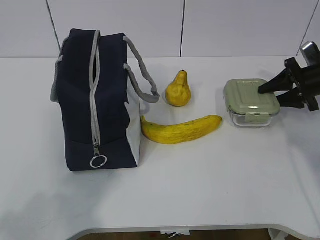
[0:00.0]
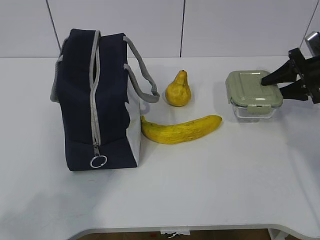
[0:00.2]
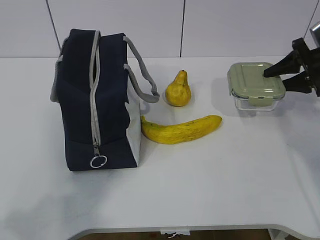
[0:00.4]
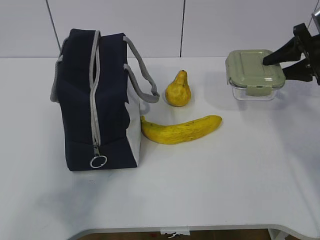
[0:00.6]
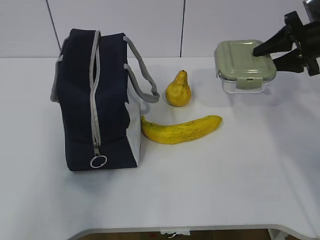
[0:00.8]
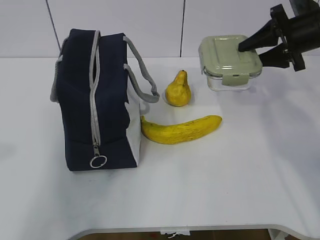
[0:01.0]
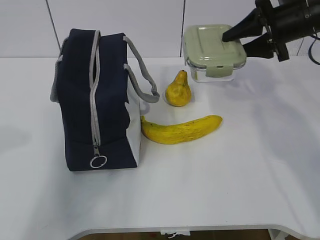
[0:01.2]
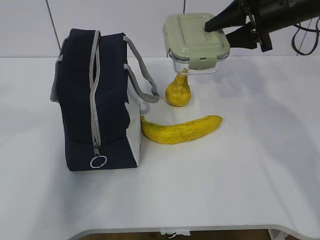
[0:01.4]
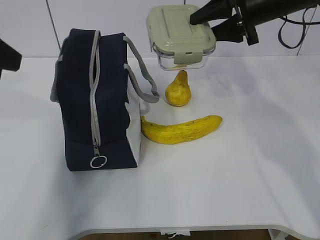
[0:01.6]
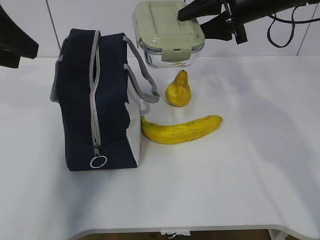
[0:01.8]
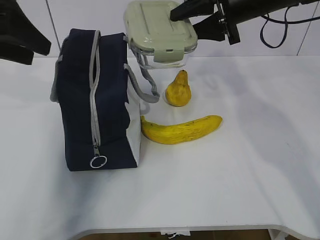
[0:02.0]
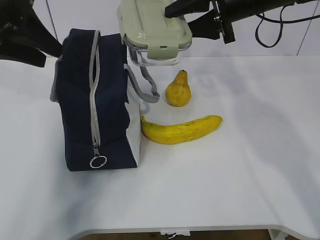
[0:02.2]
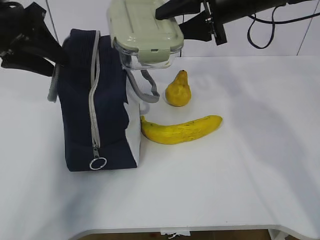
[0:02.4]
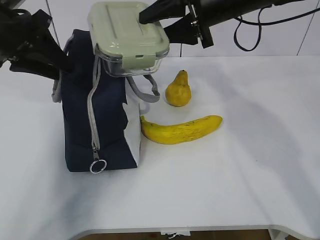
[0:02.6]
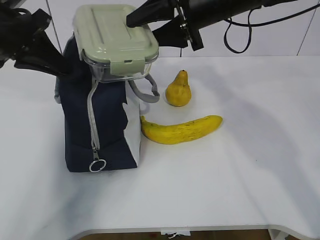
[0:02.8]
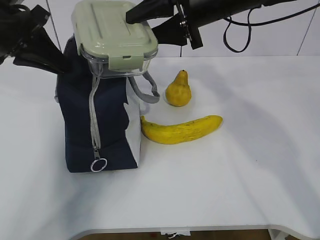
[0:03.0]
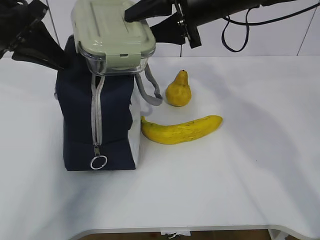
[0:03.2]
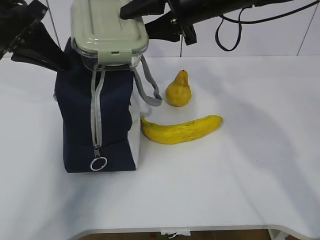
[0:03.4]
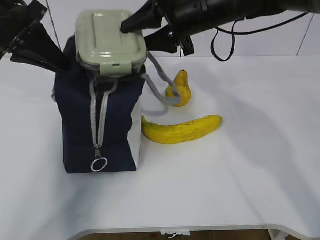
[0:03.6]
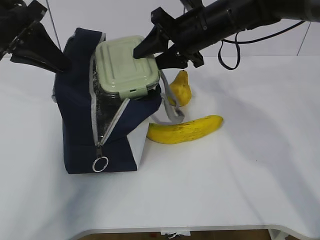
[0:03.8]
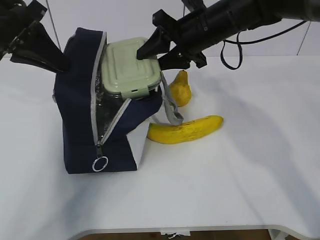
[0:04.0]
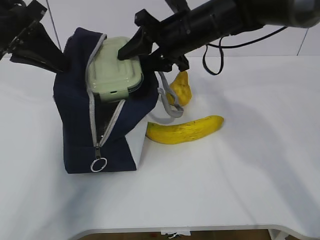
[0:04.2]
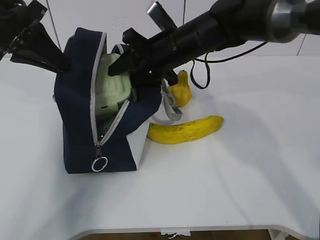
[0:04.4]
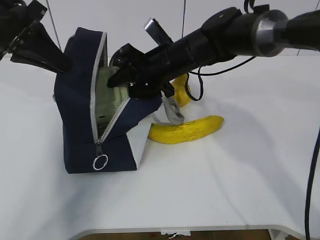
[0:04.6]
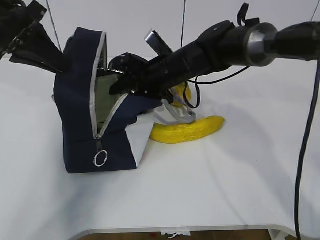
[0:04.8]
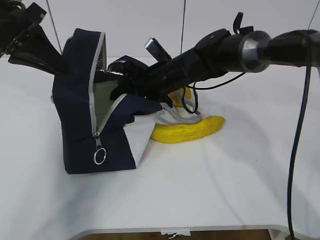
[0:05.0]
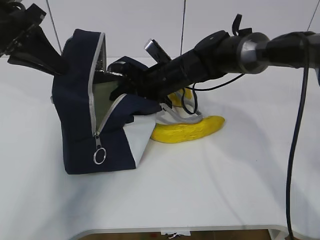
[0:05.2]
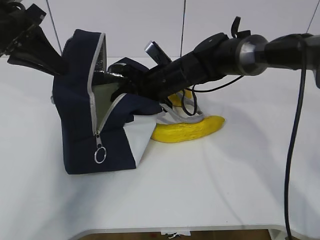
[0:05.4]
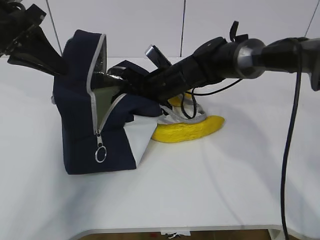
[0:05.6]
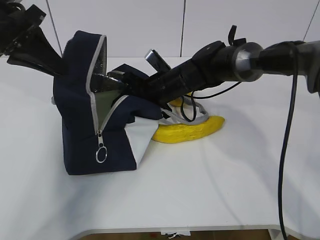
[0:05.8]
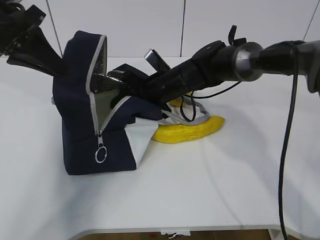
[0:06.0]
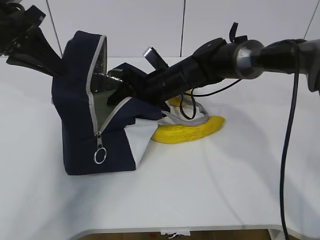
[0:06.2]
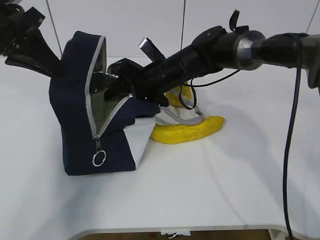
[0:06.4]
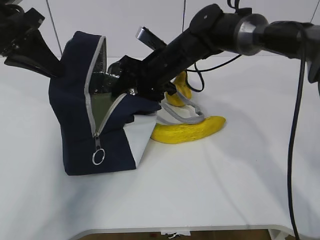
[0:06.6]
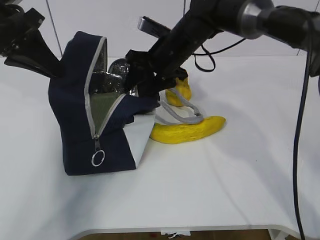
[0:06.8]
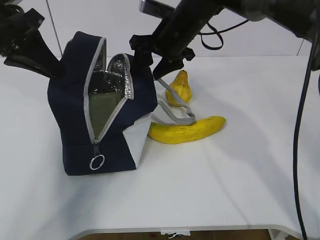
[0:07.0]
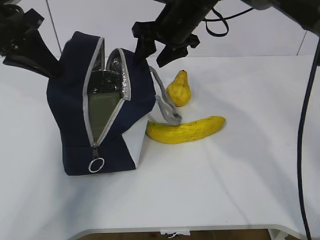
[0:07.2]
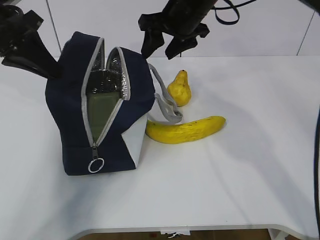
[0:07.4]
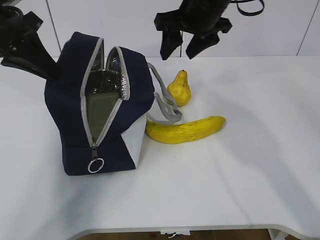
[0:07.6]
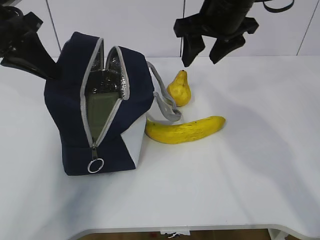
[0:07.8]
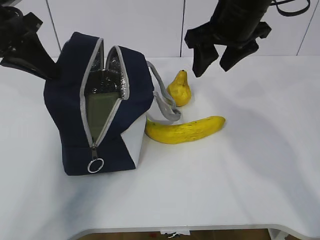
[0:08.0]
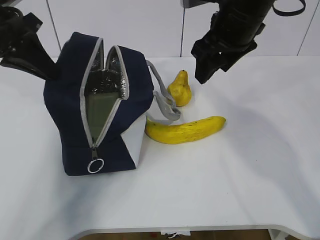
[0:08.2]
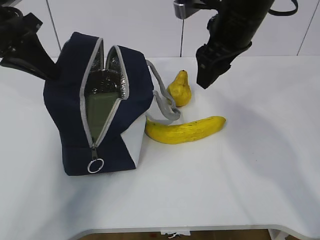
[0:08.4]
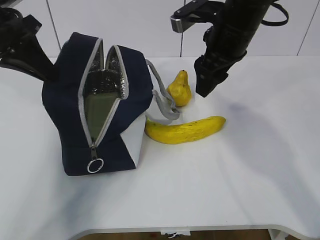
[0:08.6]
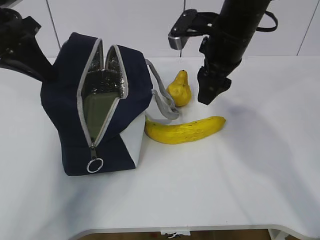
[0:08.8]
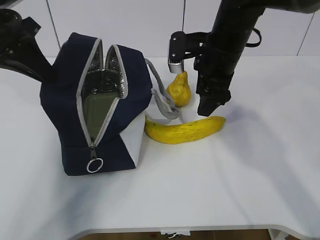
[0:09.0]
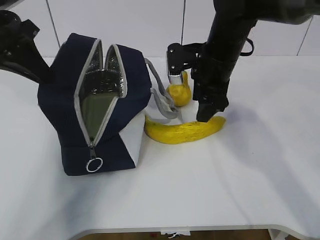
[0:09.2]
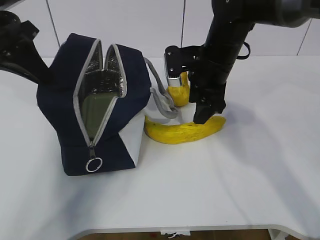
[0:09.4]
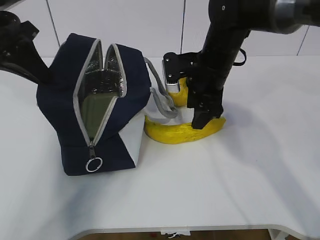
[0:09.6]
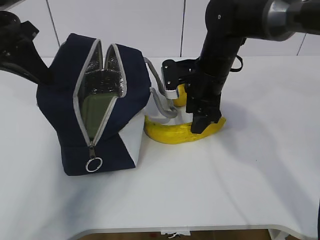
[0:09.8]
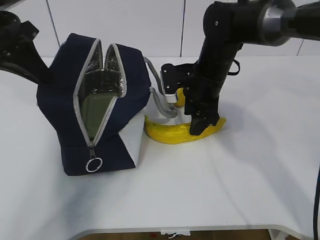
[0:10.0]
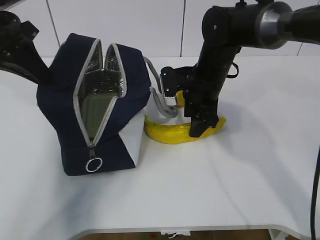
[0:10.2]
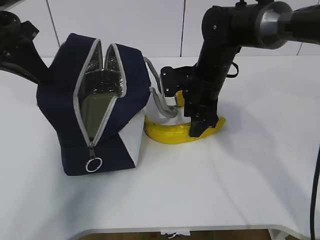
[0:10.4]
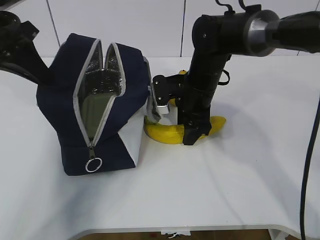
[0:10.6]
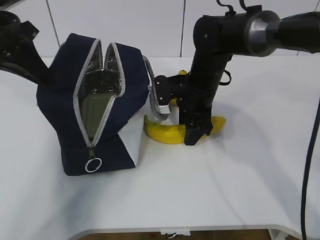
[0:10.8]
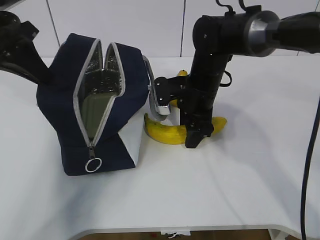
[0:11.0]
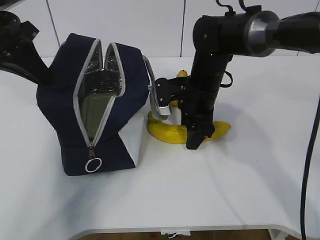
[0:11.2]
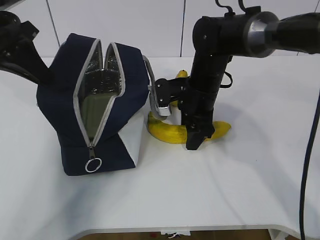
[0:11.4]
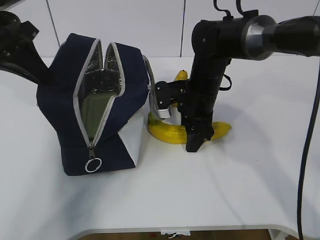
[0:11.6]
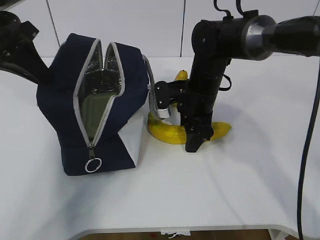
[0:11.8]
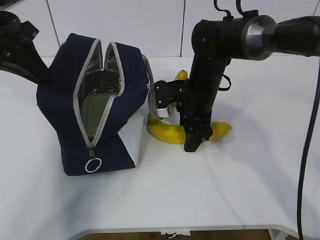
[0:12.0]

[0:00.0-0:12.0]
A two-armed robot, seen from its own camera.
Step, 0:01.6 to 0:04.0: Place it into the bag with your right hand.
Step, 0:04.2 to 0:08.8: Grab the banana with your right hand.
0:00.0 to 0:01.6: The left gripper moves forward, about 25 cm, while the right gripper heads to the left and upward, covering some 25 cm.
0:01.6 to 0:03.0: The right gripper travels to the left by approximately 10 cm, while the left gripper goes approximately 15 cm forward and downward, and closes its fingers.
0:03.0 to 0:04.4: The right gripper moves downward and to the left, roughly 10 cm.
0:04.4 to 0:06.0: The right gripper is displaced downward by approximately 10 cm.
0:06.0 to 0:07.6: The right gripper goes about 15 cm upward.
0:07.6 to 0:09.0: The right gripper moves downward, roughly 5 cm.
0:09.0 to 0:10.4: The right gripper moves downward, approximately 5 cm.
0:10.4 to 0:12.0: There are only small adjustments of the grippers.

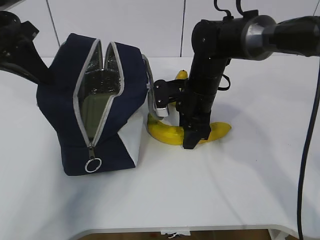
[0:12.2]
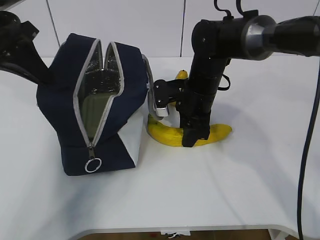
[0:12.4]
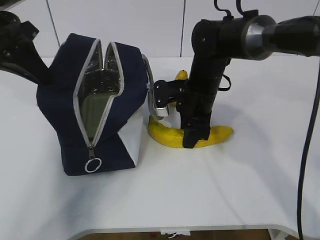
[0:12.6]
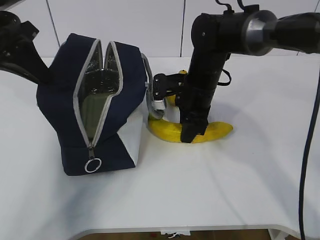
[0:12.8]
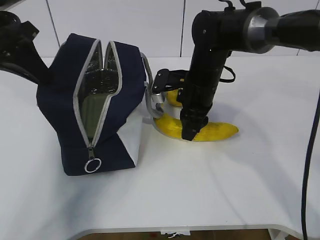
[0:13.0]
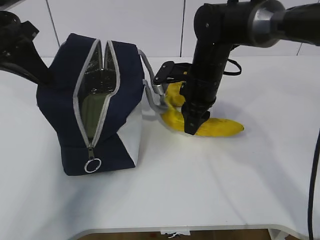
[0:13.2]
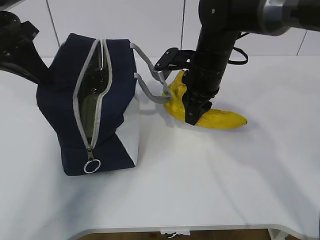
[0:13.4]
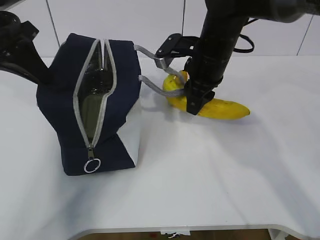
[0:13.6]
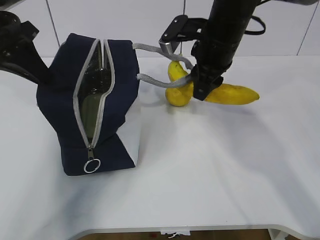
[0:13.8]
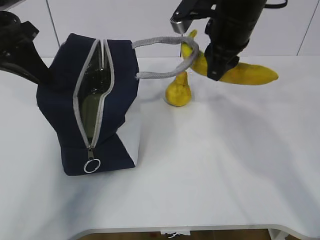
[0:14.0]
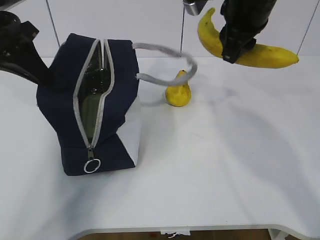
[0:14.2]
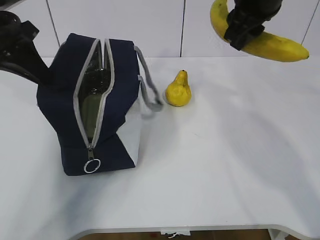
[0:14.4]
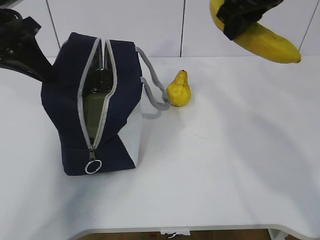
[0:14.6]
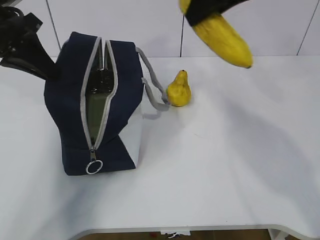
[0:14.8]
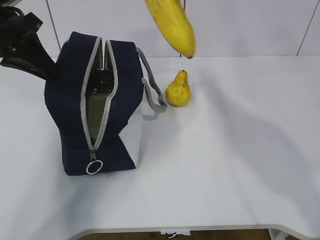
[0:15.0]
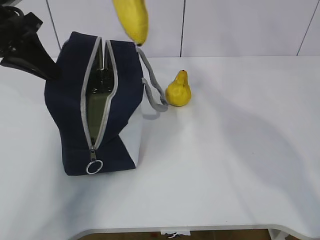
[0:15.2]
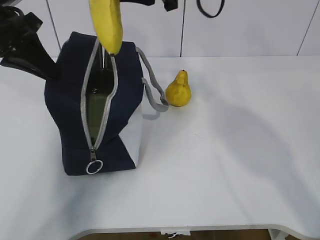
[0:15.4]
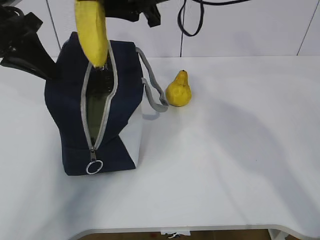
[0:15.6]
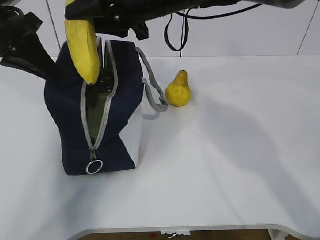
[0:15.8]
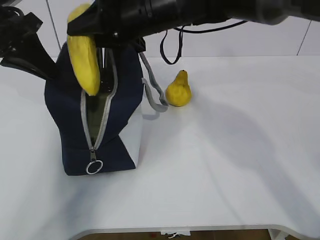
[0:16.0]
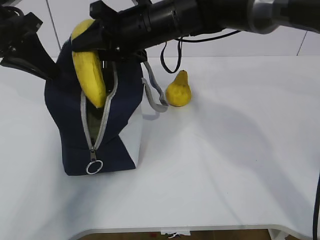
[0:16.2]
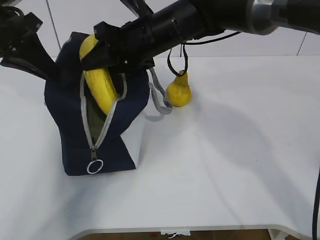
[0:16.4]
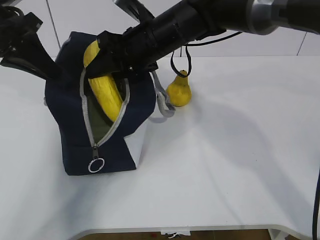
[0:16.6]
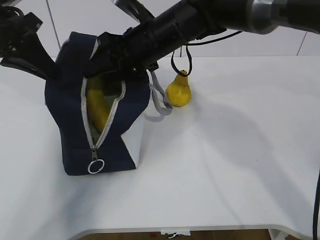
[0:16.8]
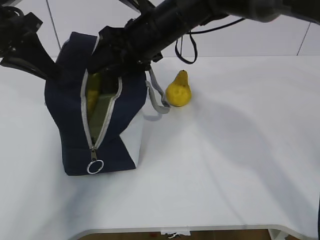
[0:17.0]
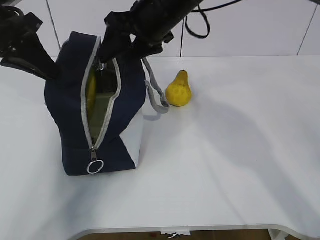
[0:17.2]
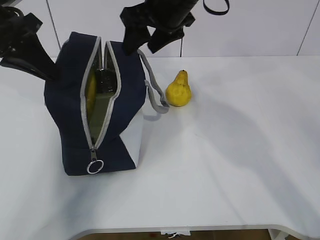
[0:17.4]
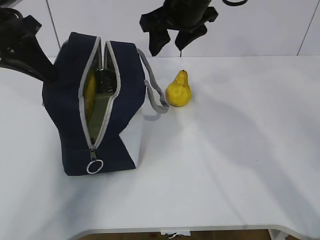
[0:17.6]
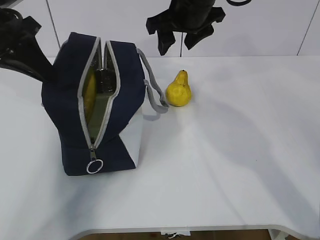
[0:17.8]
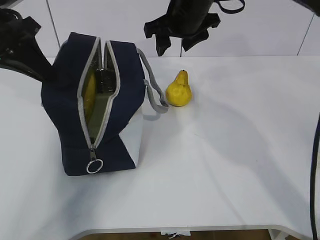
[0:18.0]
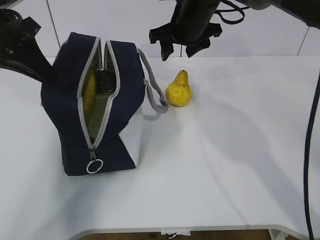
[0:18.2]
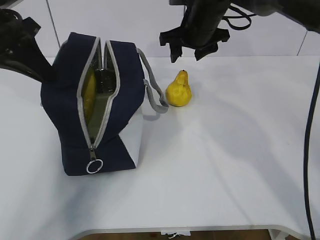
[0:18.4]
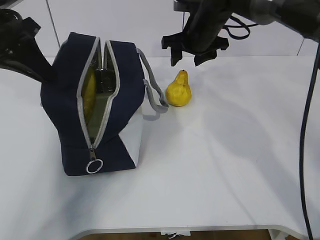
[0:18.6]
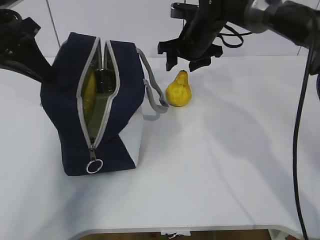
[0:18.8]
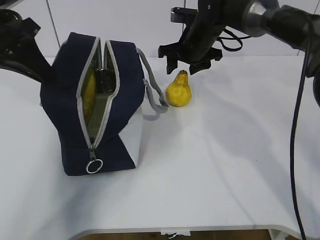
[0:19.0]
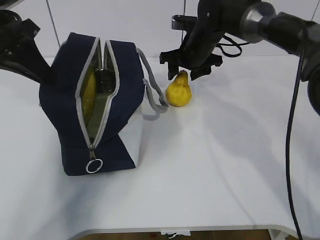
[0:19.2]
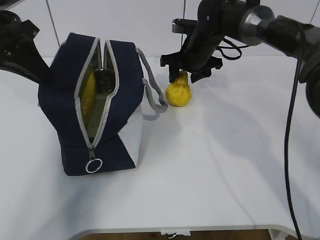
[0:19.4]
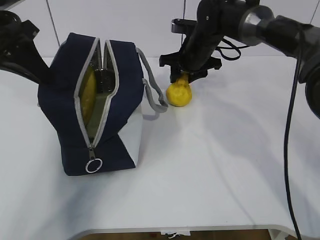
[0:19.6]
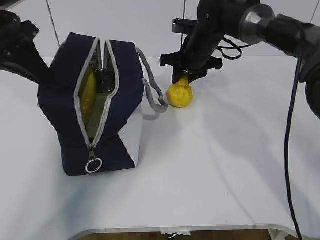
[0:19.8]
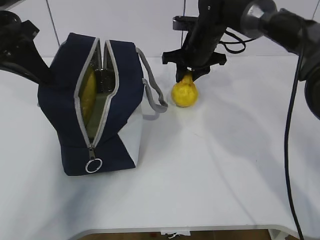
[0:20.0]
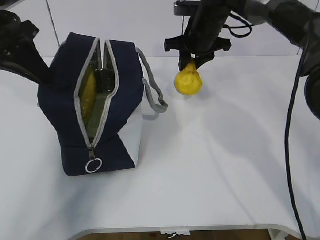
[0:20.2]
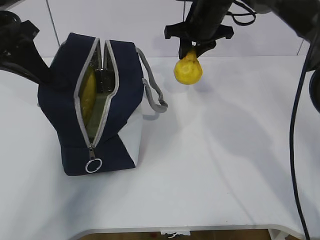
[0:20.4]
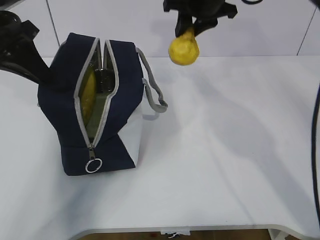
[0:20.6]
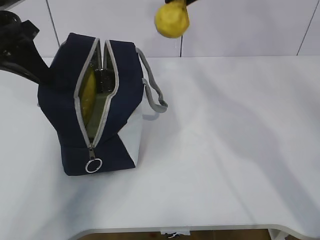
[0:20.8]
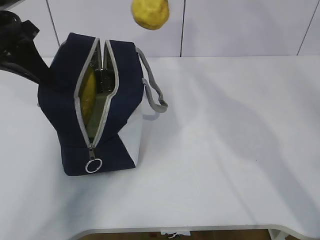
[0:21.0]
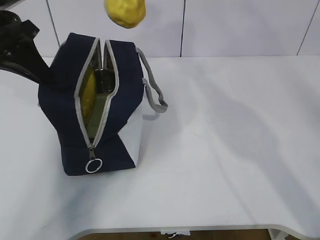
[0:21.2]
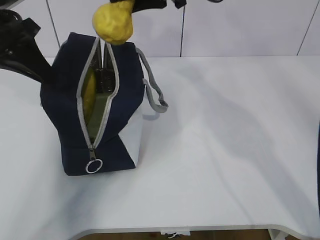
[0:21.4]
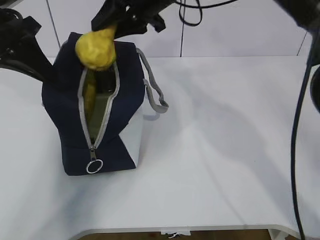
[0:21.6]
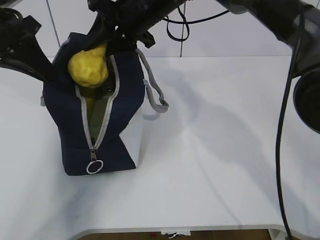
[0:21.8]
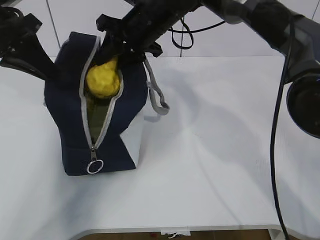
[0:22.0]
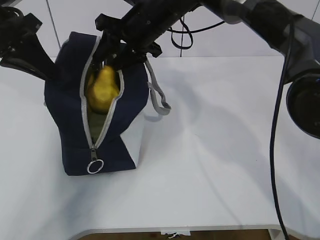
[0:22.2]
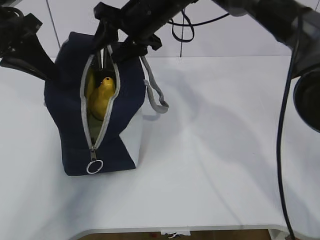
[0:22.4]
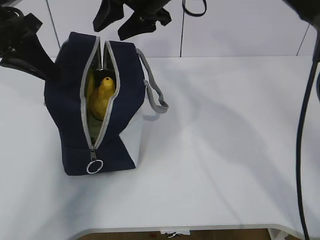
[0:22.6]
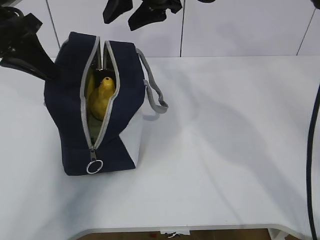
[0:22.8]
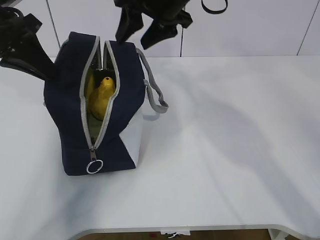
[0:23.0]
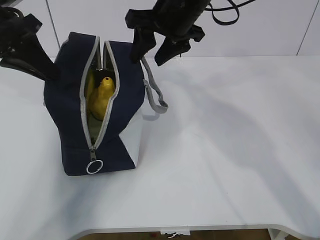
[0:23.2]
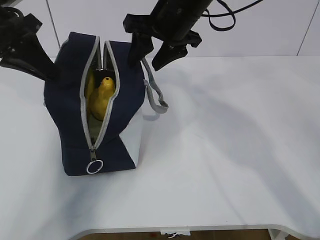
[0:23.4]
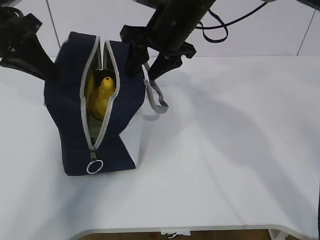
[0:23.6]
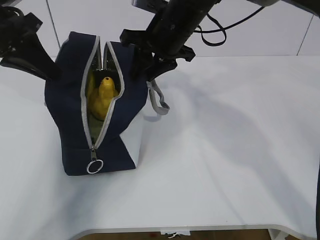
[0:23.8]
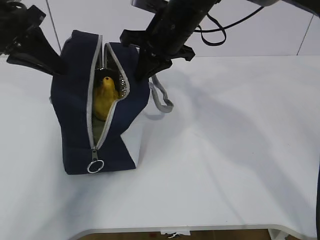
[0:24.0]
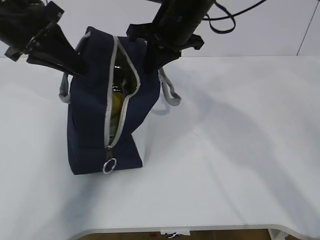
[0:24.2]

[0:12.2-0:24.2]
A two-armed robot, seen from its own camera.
Step, 0:13.0 to 0:15.0: Grab the pear with your right hand.
Step, 0:17.4 to 0:18.4: Grab the lunch bag with your right hand.
Step, 0:18.6 to 0:19.6: Move the lunch bag to the right.
0:12.2 to 0:13.8: The right gripper moves upward, about 10 cm.
0:13.8 to 0:15.2: The right gripper travels upward by approximately 15 cm.
0:15.2 to 0:16.6: The right gripper goes approximately 15 cm downward.
0:16.6 to 0:18.2: The right gripper is displaced to the right and forward by some 10 cm, and opens.
0:18.2 to 0:19.8: The right gripper is displaced downward by about 10 cm, and closes.
0:19.8 to 0:21.2: The right gripper heads upward, covering approximately 20 cm.
0:21.2 to 0:22.6: The right gripper goes about 10 cm downward and to the left.
0:22.6 to 0:24.2: The right gripper ends up approximately 5 cm from where it was, and closes up.
